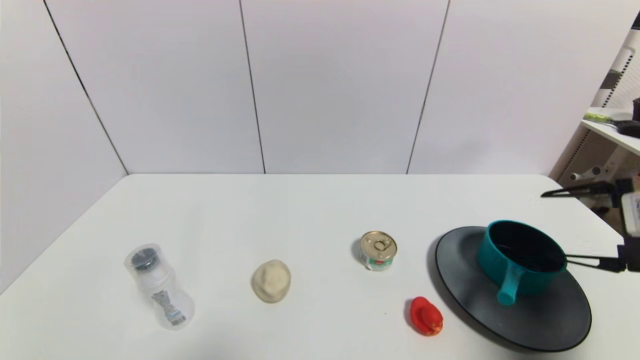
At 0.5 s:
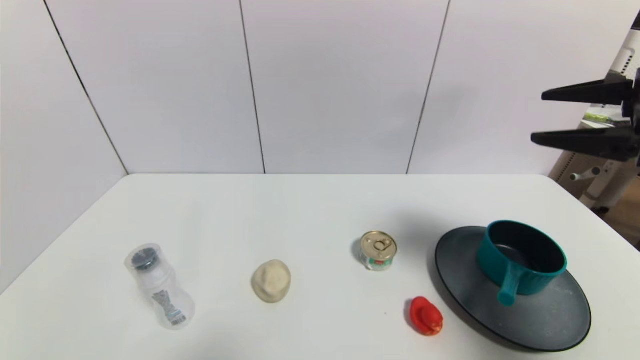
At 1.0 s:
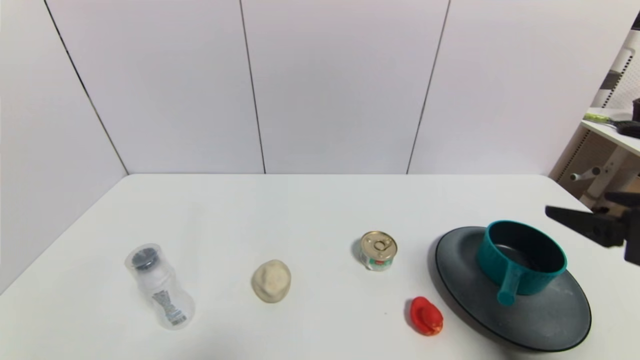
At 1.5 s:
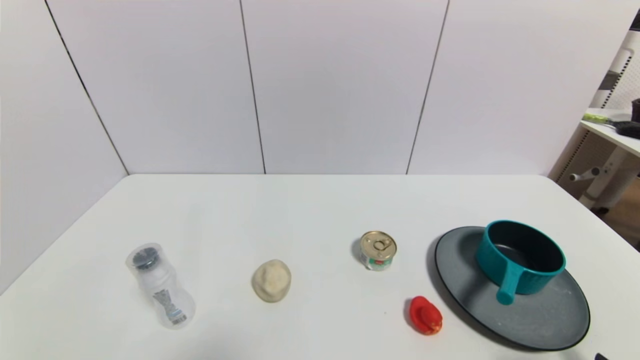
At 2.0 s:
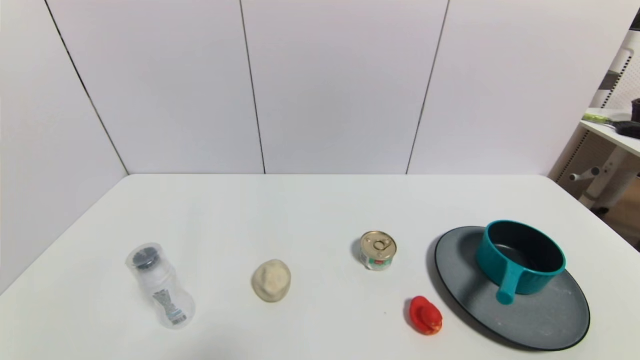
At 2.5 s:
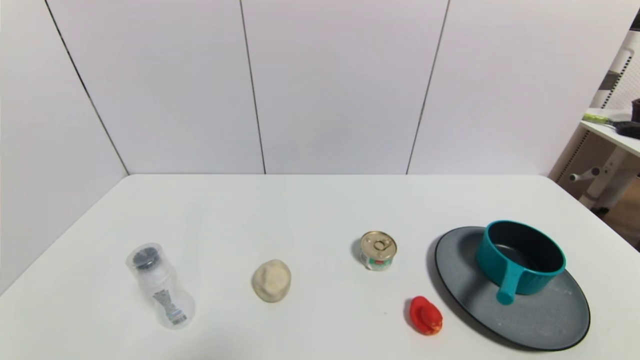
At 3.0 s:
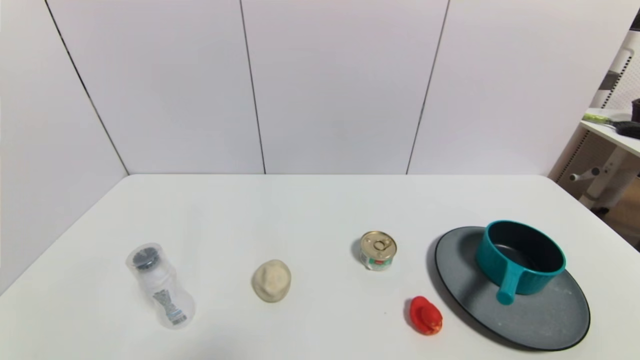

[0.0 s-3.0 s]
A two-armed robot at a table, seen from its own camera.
Task of the whole recording: use a gripper to pick the target object and place on the gray plate.
0.0 to 1.5 s: The right gripper goes roughly 20 cm backward and downward.

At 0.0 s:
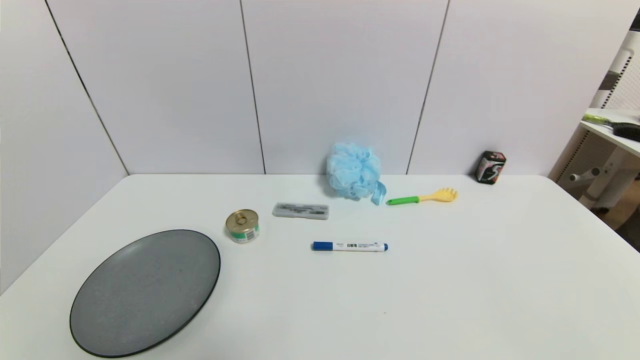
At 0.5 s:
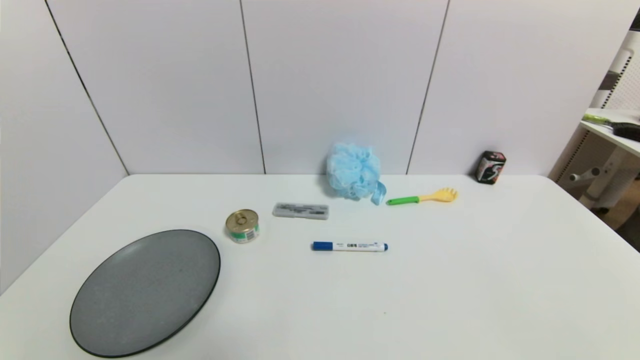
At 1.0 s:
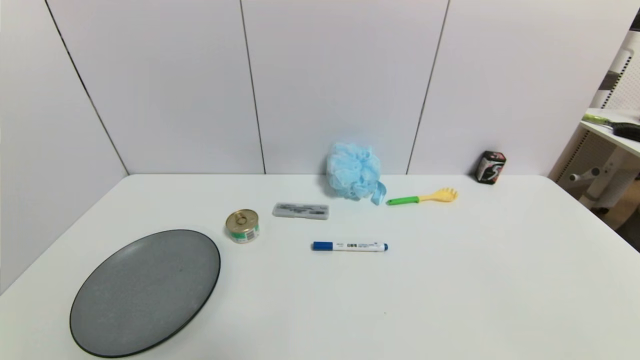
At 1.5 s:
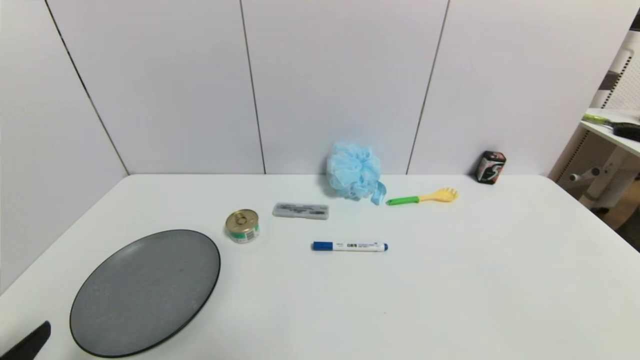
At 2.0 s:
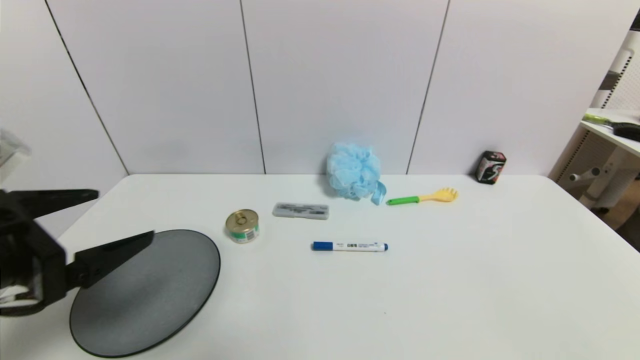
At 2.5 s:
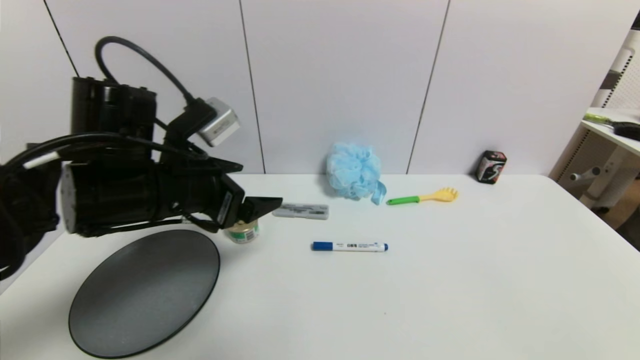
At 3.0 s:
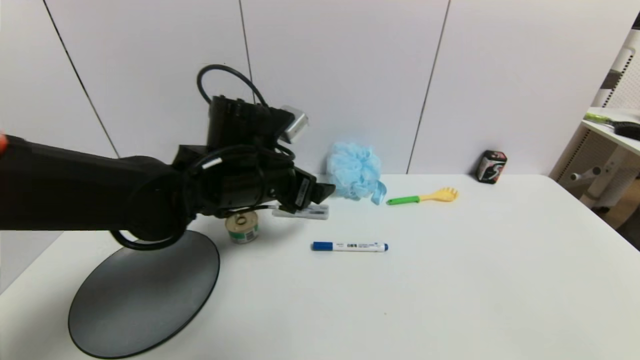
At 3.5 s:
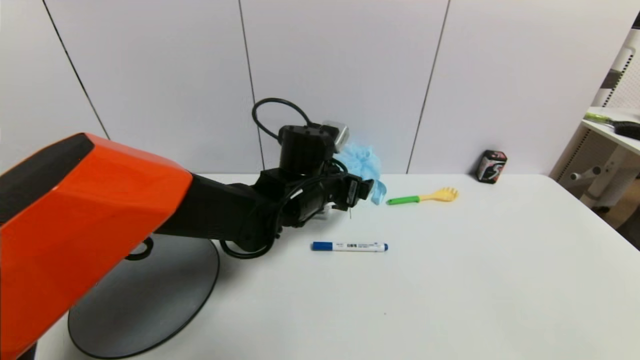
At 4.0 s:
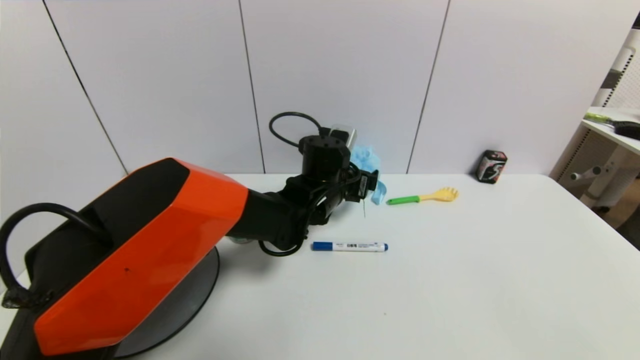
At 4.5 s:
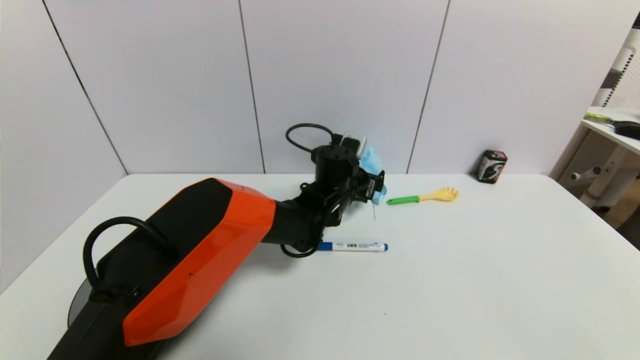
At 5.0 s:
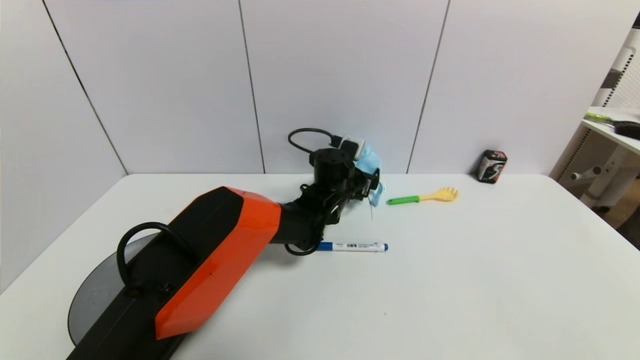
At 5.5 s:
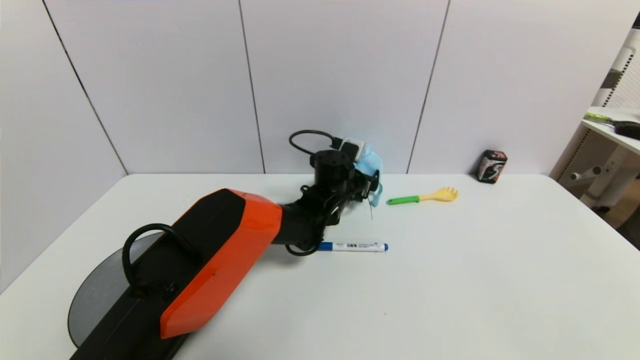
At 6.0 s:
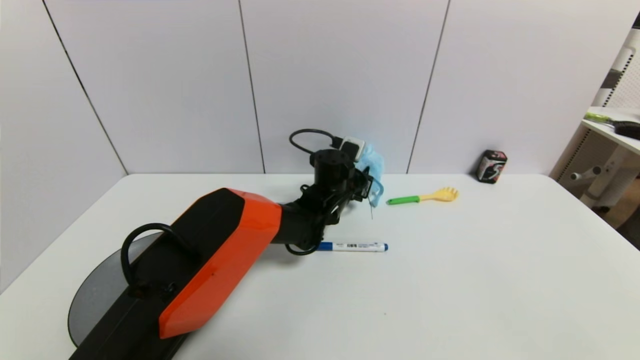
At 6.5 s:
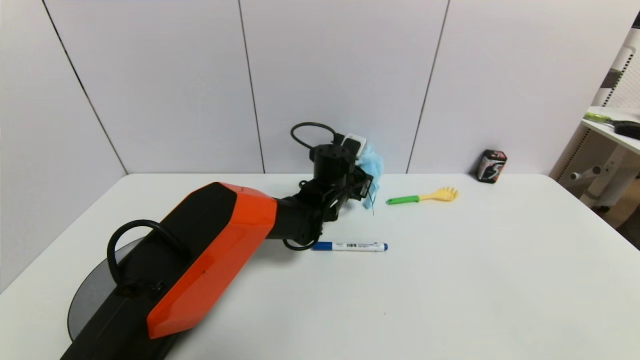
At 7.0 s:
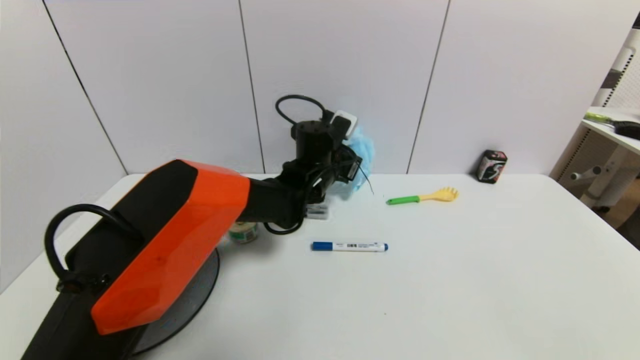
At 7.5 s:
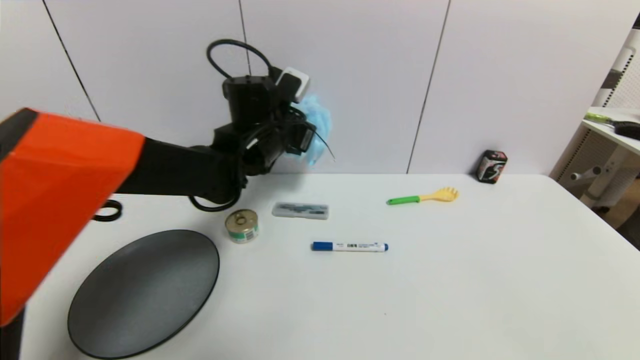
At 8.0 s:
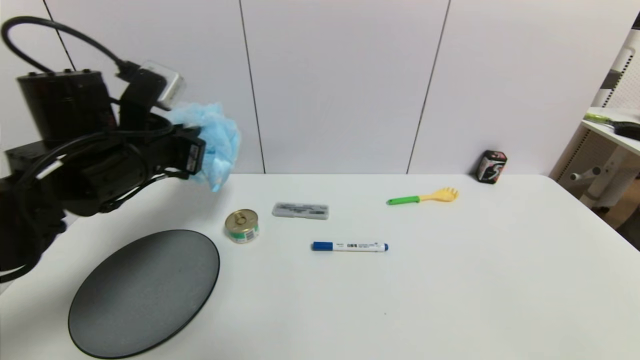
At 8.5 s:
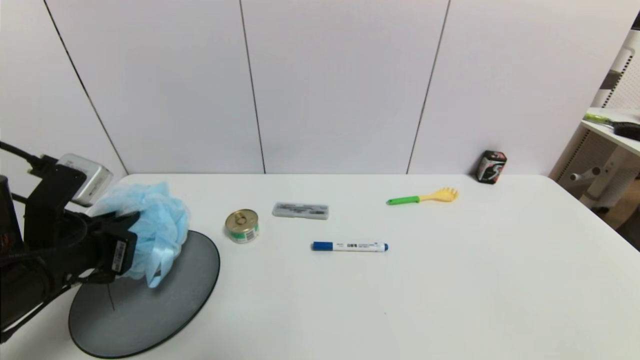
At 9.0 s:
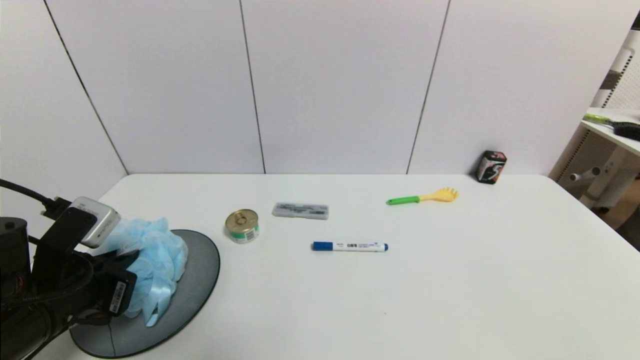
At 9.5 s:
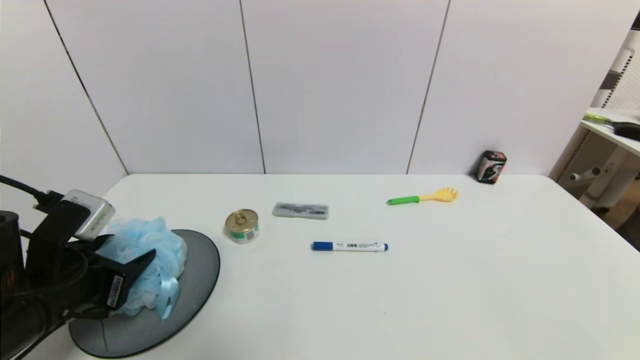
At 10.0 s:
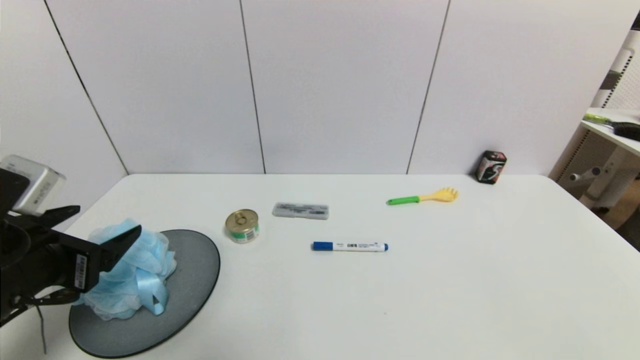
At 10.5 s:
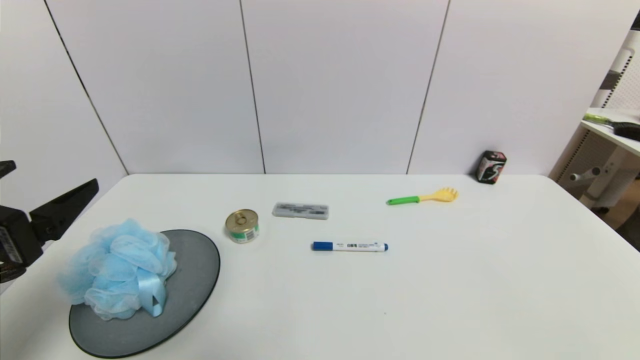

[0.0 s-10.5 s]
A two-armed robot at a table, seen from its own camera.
Task of the whole recording: use a gripper to pick the target object and place on the gray plate.
Step, 0.0 to 6.5 s: Grasp the shower sphere with the left gripper.
Step, 7.0 to 10.0 s: Place the shower sphere on the gray plate with the left gripper.
0.0 to 2.0 s: The left gripper travels upward and forward by approximately 25 cm.
2.0 to 4.0 s: The left gripper is displaced to the right and forward by roughly 40 cm.
4.0 to 6.5 s: The left gripper ends up some 5 cm from where it was, and closes its fingers.
6.5 to 8.5 s: The left gripper is displaced to the left and backward by some 40 cm.
8.5 to 10.5 s: The left gripper shifts some 10 cm backward and upward, and opens.

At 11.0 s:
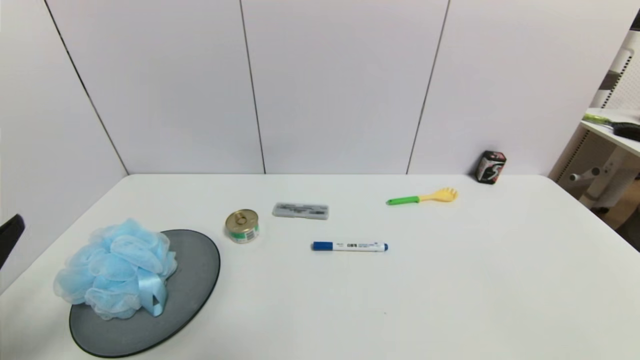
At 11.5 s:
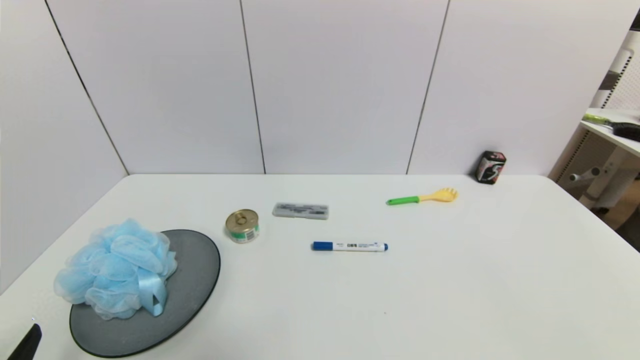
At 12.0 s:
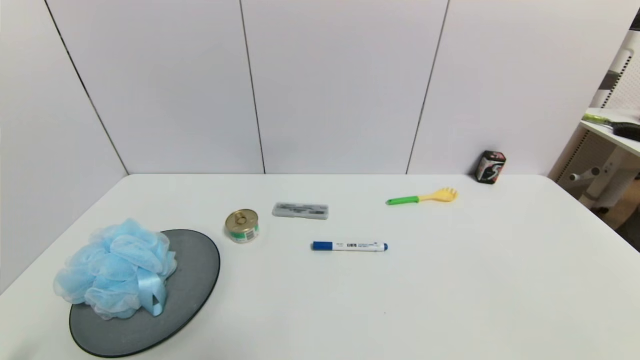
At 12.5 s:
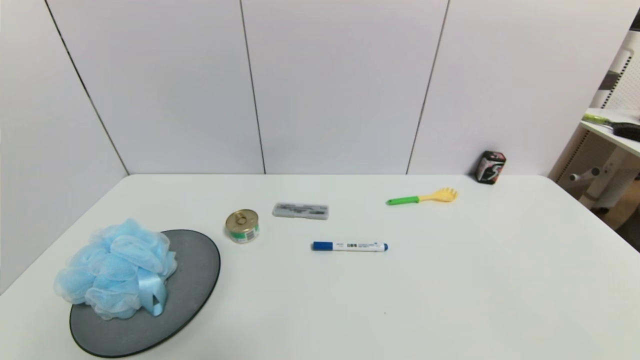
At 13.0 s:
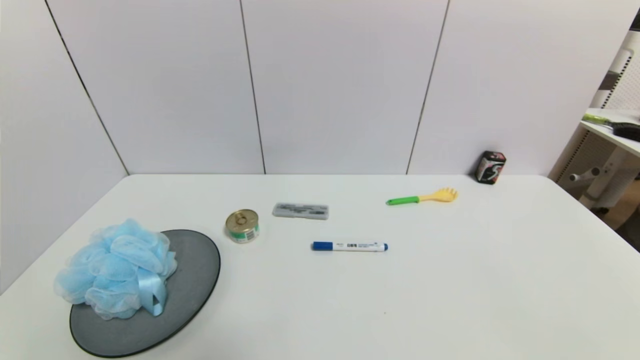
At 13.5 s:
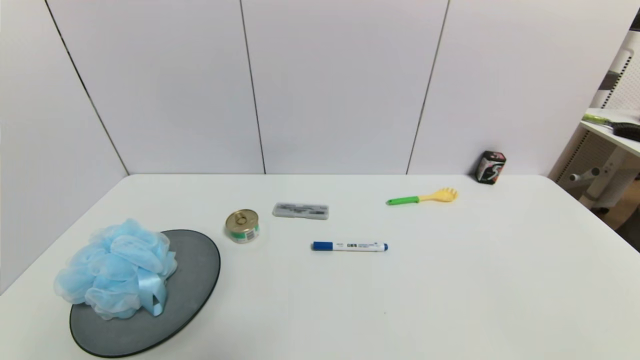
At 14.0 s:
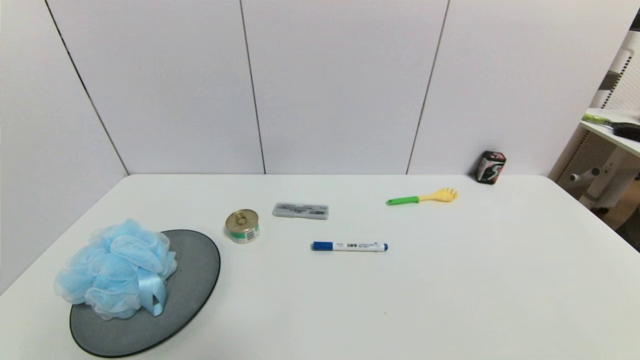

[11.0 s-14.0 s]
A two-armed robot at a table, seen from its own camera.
Task of the whole recording: use a gripper to pick the target object and place on the gray plate.
11.0 to 12.5 s: The left gripper is displaced downward and backward by about 15 cm.
